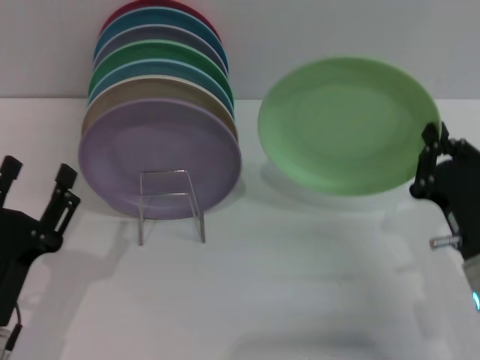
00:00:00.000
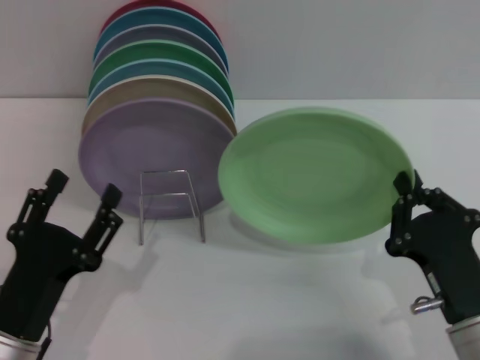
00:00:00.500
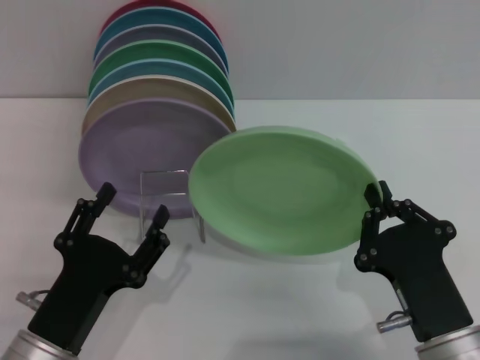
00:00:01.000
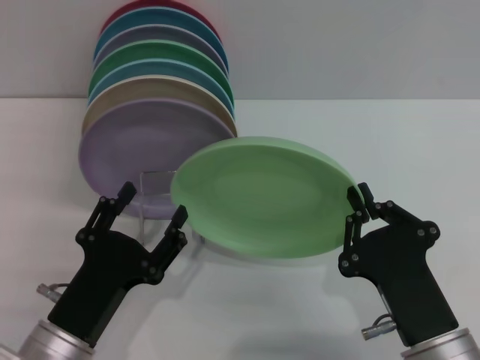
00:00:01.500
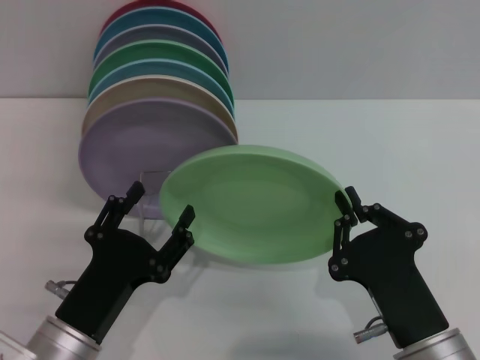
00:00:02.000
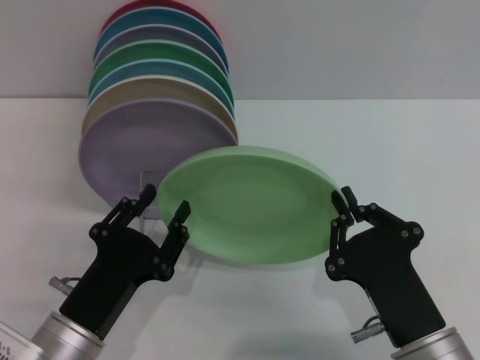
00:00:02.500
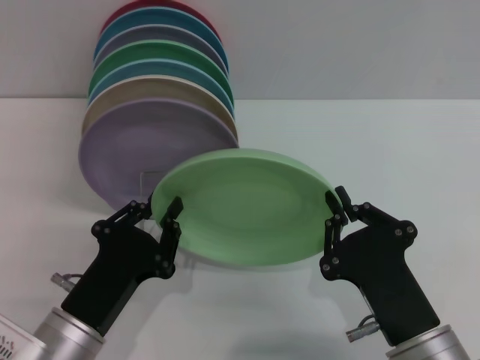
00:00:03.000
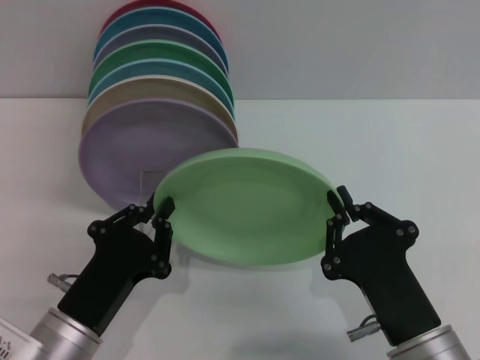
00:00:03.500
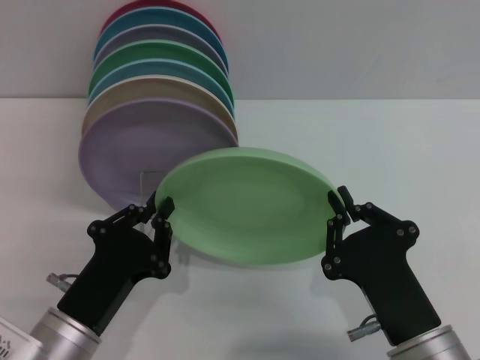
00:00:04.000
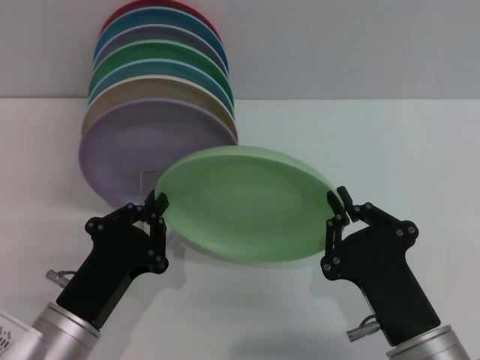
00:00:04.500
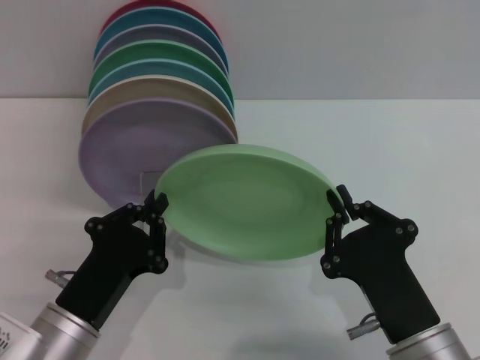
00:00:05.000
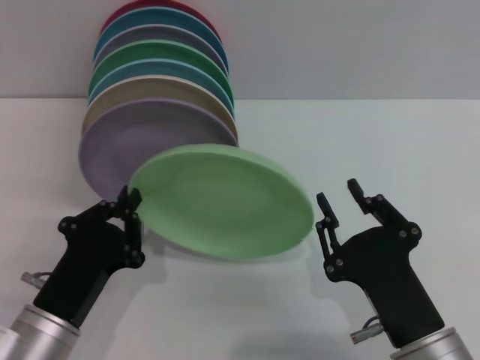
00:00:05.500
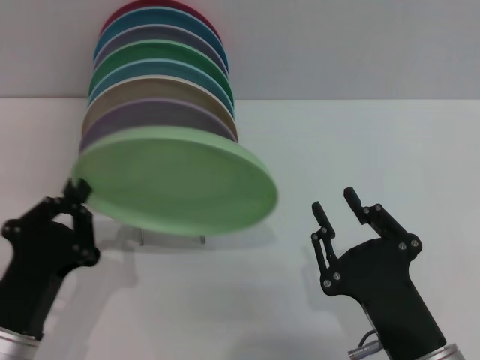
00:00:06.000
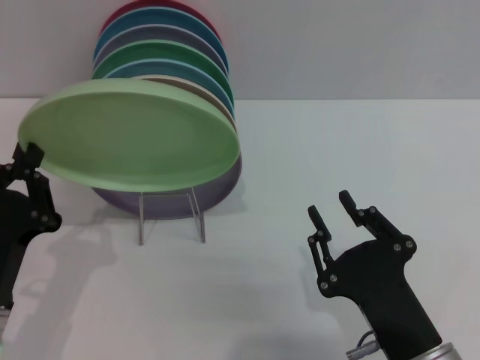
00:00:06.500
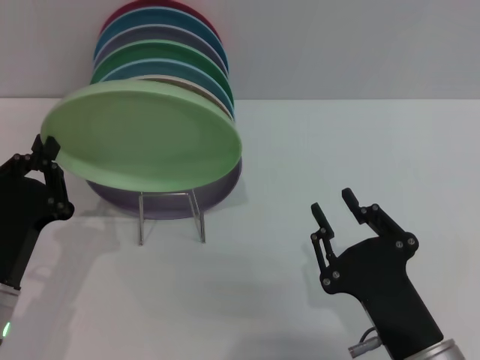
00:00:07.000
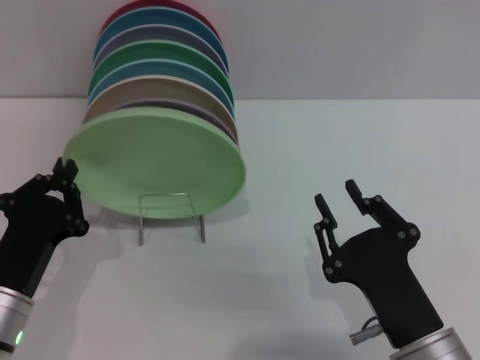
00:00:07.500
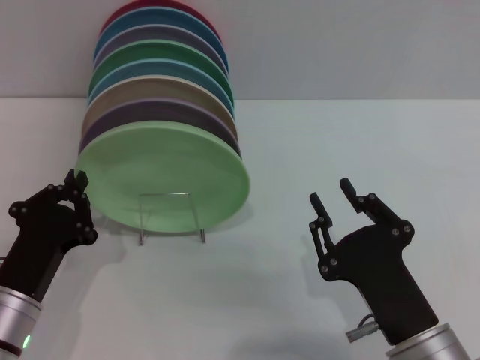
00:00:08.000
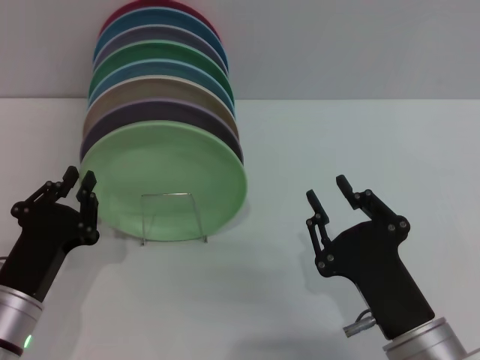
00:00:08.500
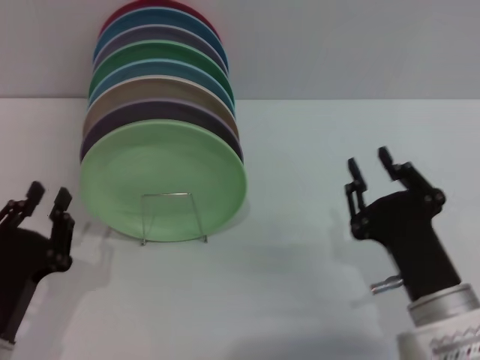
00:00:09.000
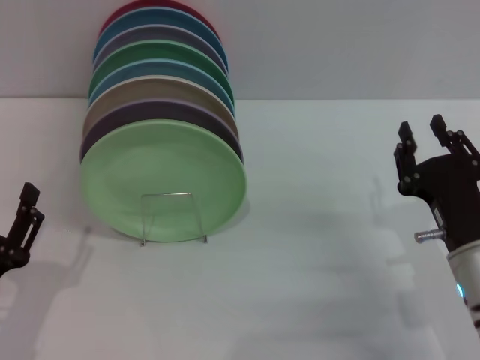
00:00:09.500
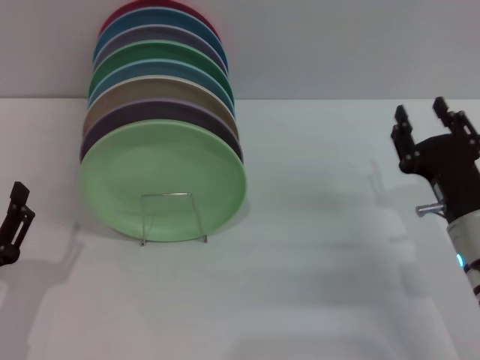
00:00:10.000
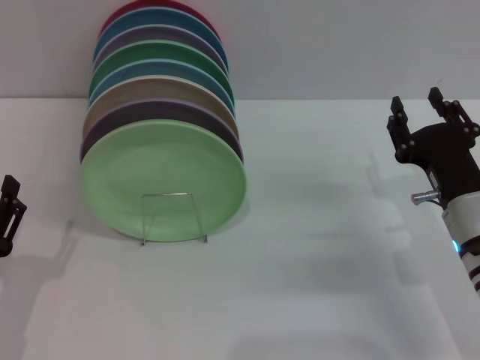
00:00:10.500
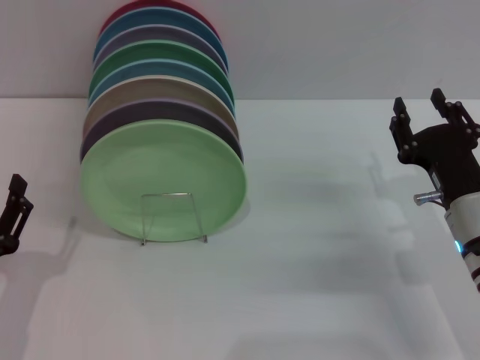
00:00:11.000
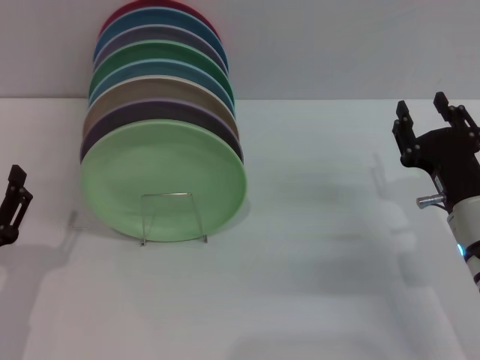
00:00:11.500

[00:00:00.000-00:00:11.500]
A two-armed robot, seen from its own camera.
Task of the whole recording: Grip the plate with one hand, pass it to the other, then set it on the shelf.
Step, 00:00:00.000 to 00:00:06.500: Pass the plate from the right gripper to the left gripper.
Step, 00:00:07.000 to 00:00:07.500: Place the plate on the shelf with the left gripper.
00:00:00.000 to 00:00:02.000: The left gripper shifts roughly 5 cm to the right. Meanwhile the right gripper is displaced to the left and backward by about 10 cm.
00:00:02.000 to 00:00:04.000: The left gripper closes up.
00:00:06.000 to 00:00:07.500: There are only small adjustments of the grippers.
00:00:07.500 to 00:00:09.500: The right gripper moves forward and to the right, about 10 cm. The left gripper shifts by roughly 5 cm, and opens its fingers.
00:00:09.500 to 00:00:11.500: The left gripper opens its fingers.

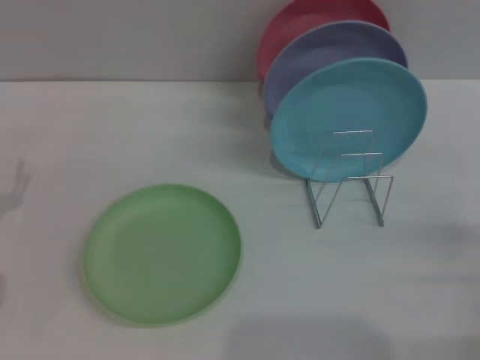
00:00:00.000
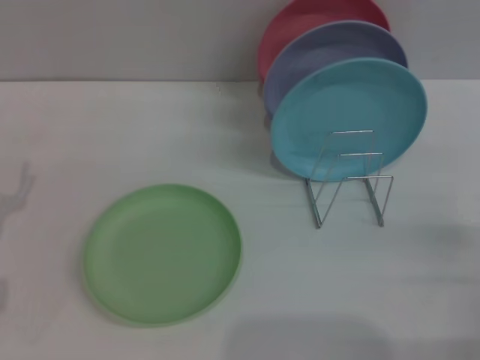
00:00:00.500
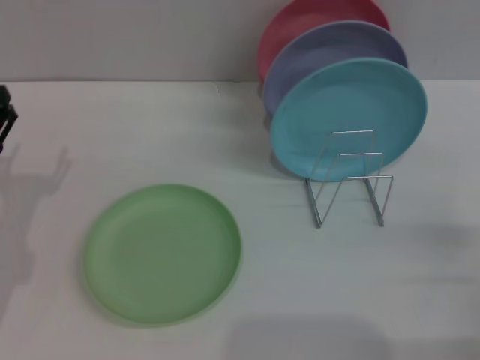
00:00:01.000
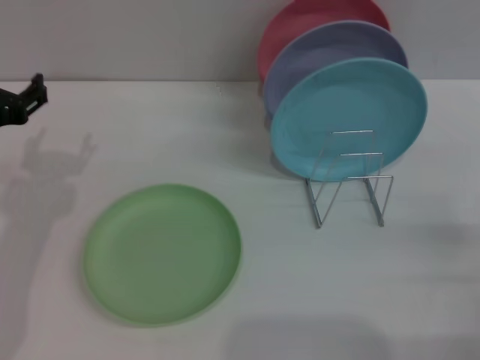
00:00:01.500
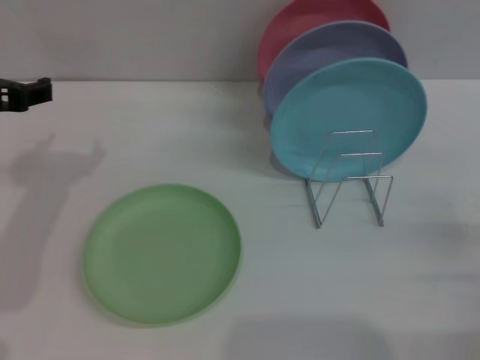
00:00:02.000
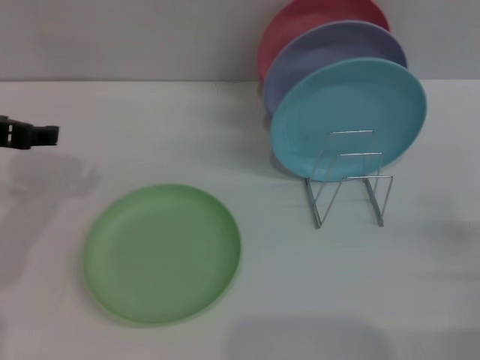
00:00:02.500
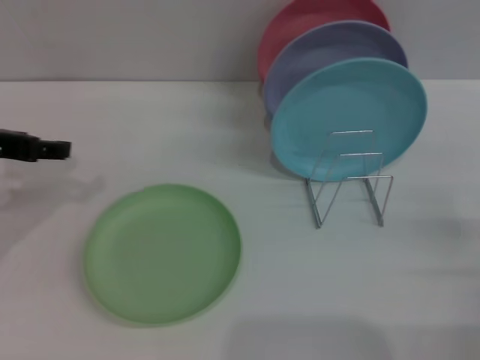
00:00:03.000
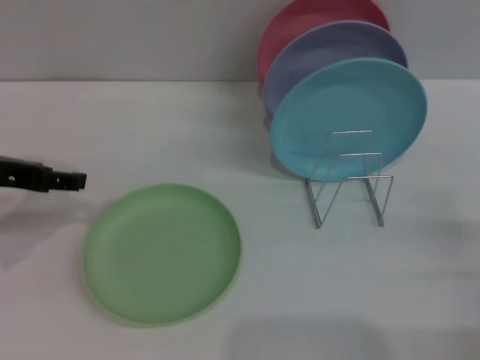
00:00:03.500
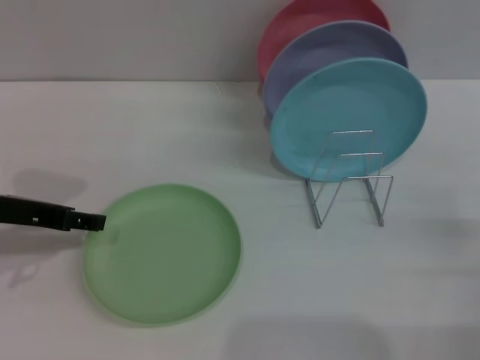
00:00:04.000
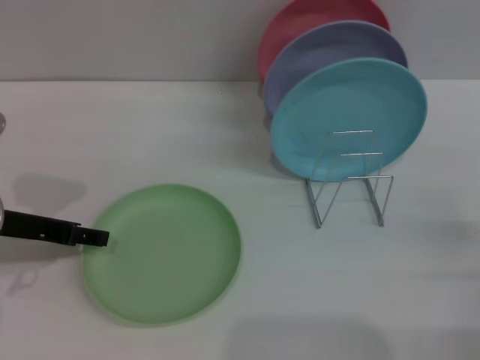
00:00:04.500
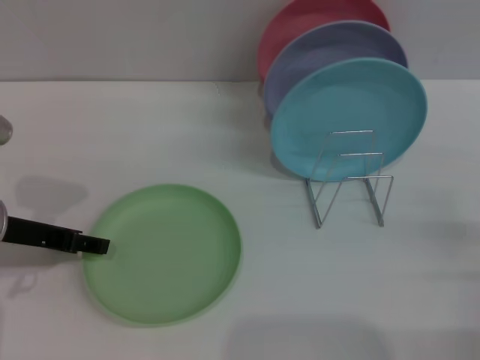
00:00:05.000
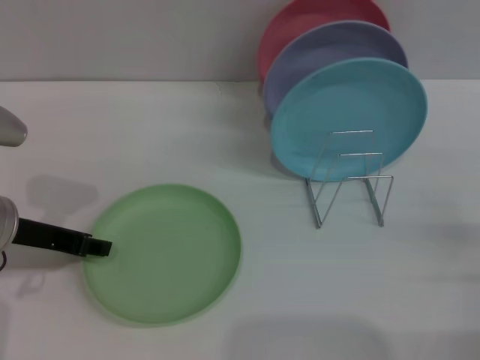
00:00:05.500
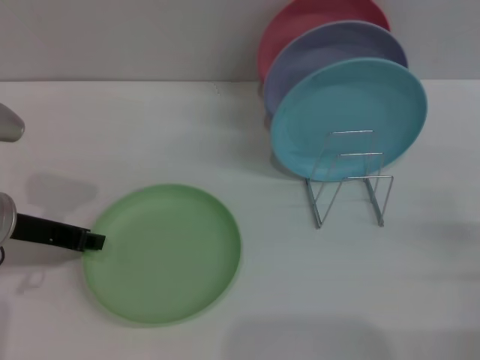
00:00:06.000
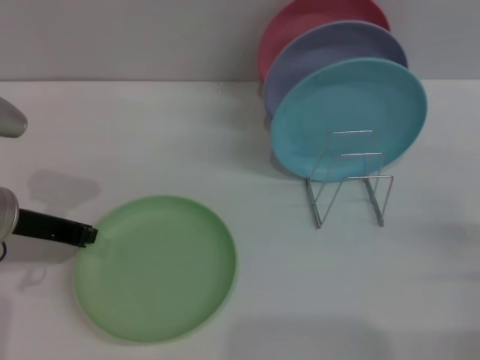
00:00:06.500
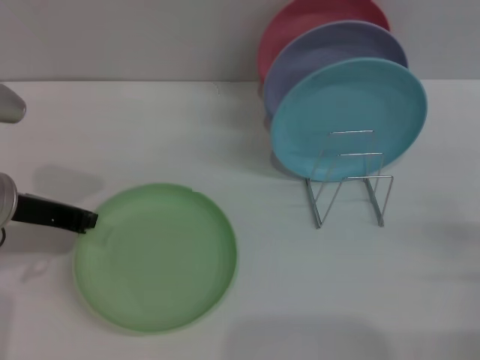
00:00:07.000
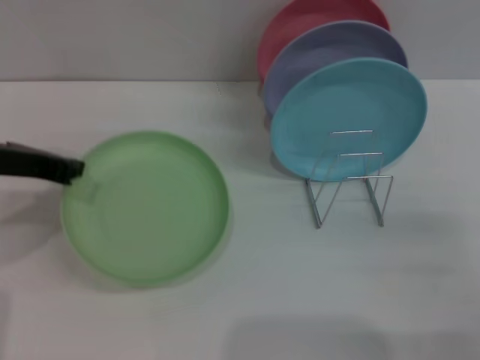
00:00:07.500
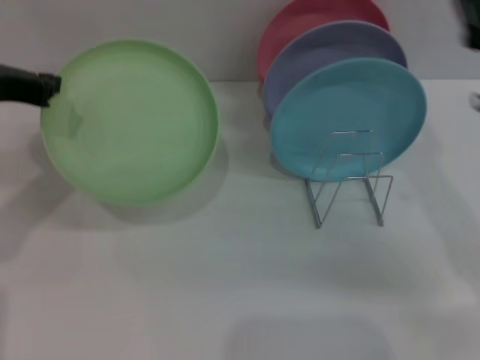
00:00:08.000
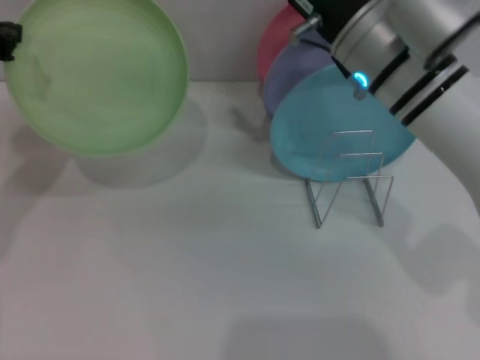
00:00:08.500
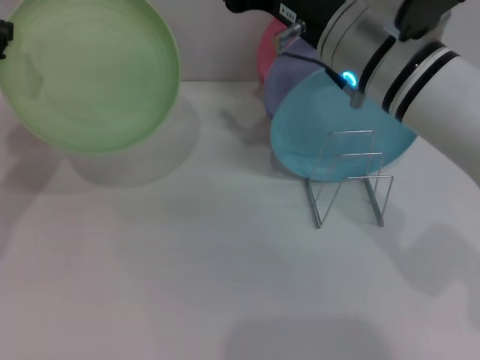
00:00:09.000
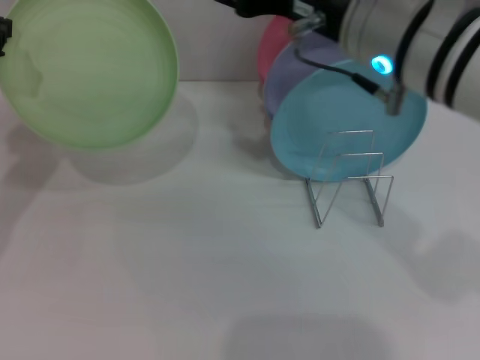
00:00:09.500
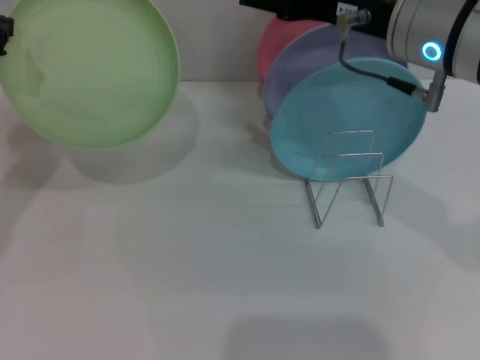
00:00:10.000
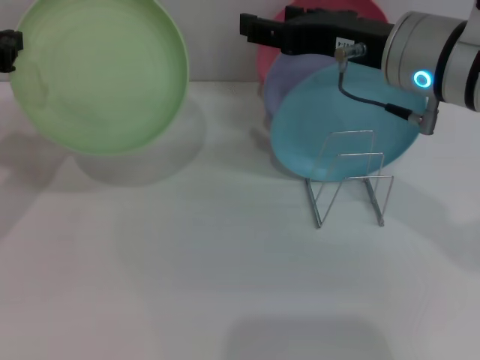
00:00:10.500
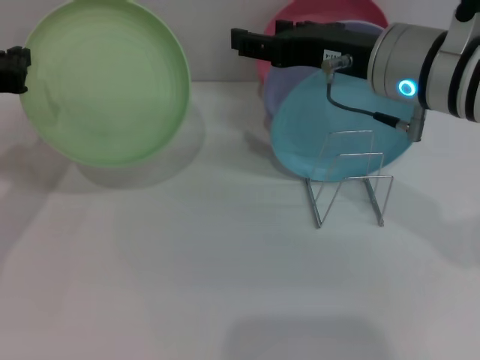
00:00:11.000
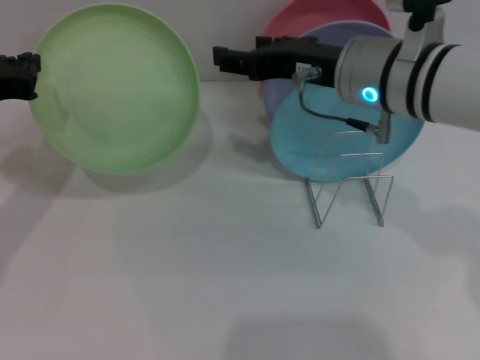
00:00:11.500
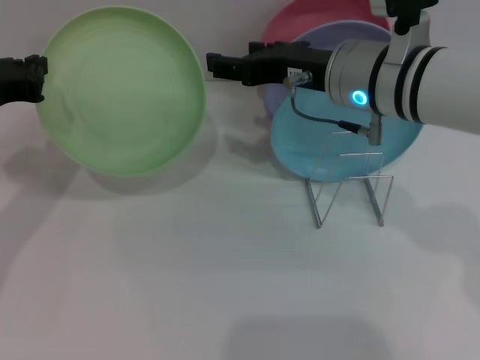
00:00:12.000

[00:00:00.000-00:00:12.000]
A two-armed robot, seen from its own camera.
Task of the whole recording: Grip the plate with one hand, pass it to the other, then set it on the shelf.
Step, 00:00:00.000 to 00:00:08.000: Pick up the plate with the left gripper.
00:00:00.000 to 00:00:02.000: The left gripper travels upward and forward by about 15 cm.
00:00:02.000 to 00:00:04.000: The left gripper heads downward, covering about 5 cm.
00:00:04.000 to 00:00:06.000: The left gripper closes.
00:00:06.000 to 00:00:08.000: The right gripper shifts about 15 cm forward, to the left and upward. Meanwhile the left gripper travels upward by roughly 10 cm, and closes up.
00:00:08.000 to 00:00:10.000: The right gripper moves upward and to the left, approximately 15 cm.
00:00:10.000 to 00:00:12.000: Both grippers move downward, about 5 cm.

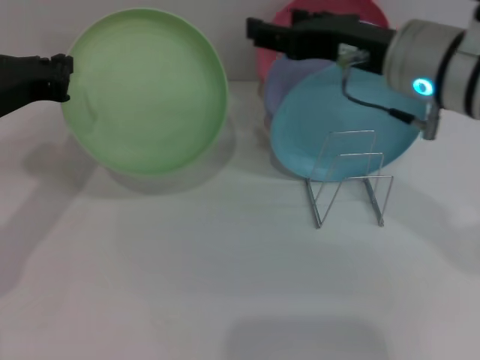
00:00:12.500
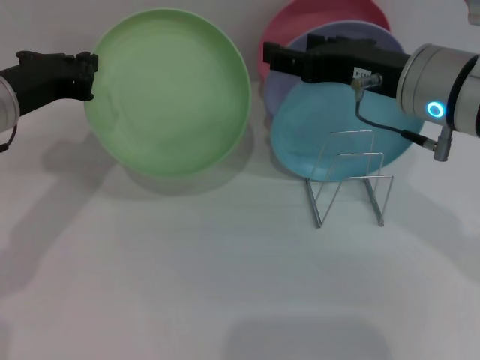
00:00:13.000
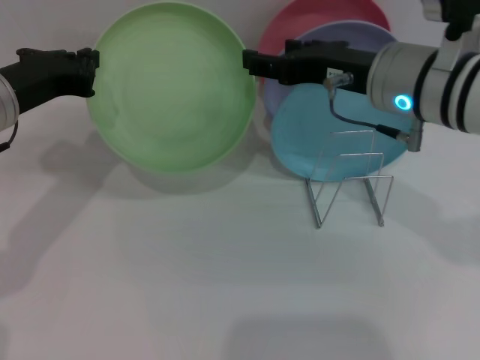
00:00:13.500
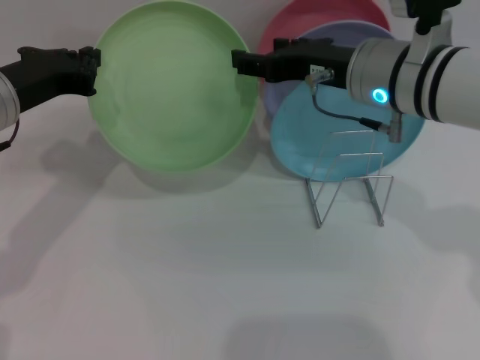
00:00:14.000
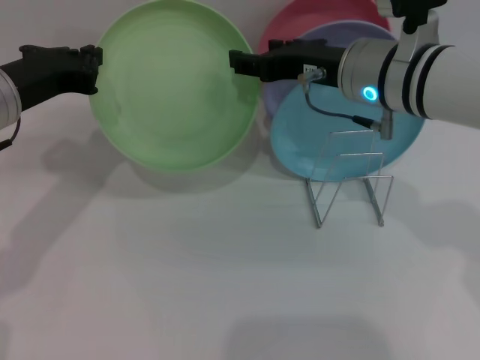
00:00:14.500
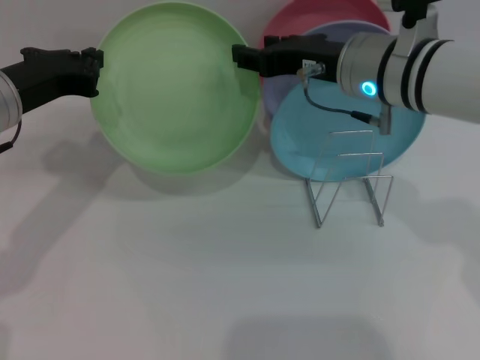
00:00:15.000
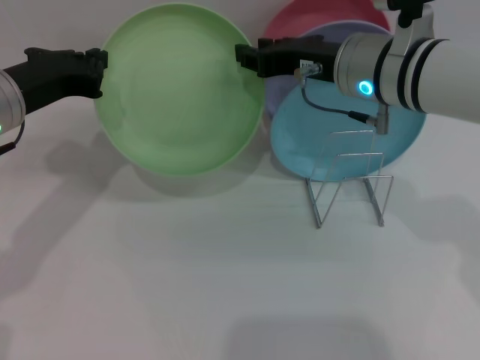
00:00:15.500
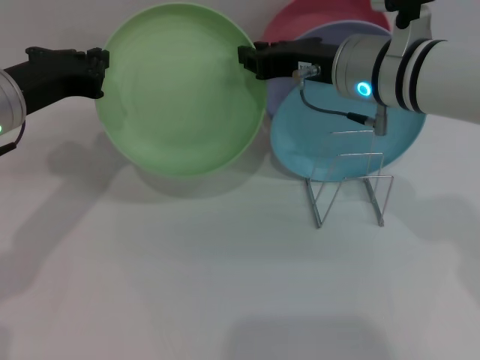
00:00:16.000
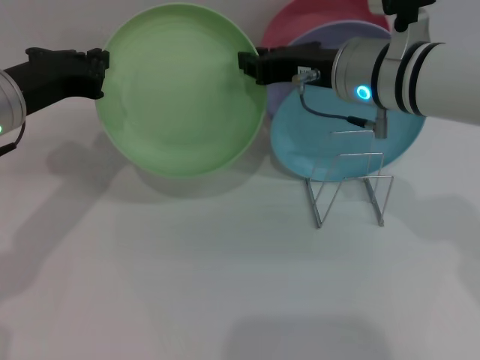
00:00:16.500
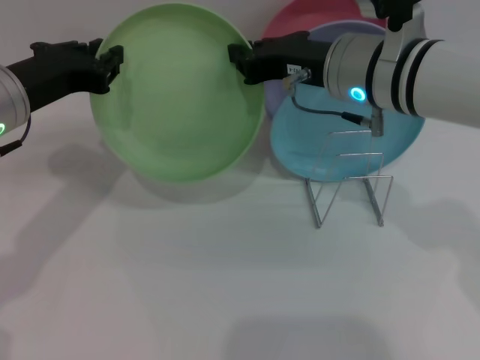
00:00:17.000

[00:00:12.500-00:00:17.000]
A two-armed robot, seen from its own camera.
Task of the whole recording: Grip the plate with one hand, pass it to the other, then set it on the shelf.
00:00:12.500 to 00:00:14.500: The right gripper shifts by roughly 5 cm.
00:00:14.500 to 00:00:17.000: The right gripper closes its fingers.
